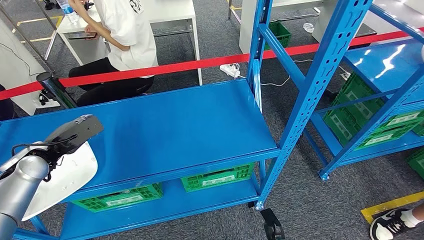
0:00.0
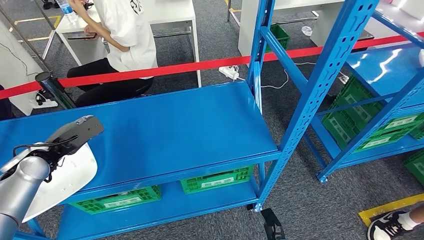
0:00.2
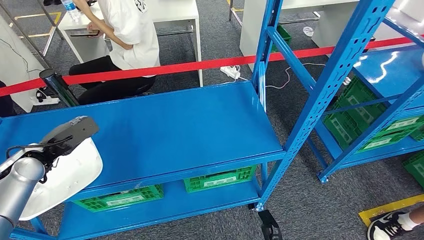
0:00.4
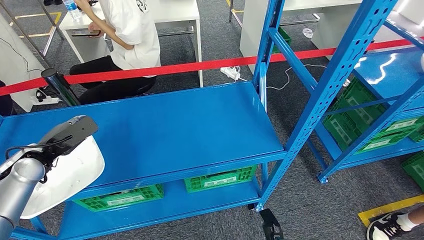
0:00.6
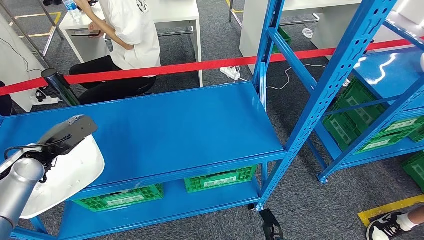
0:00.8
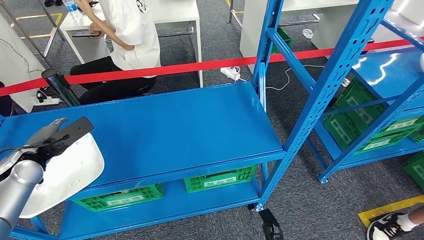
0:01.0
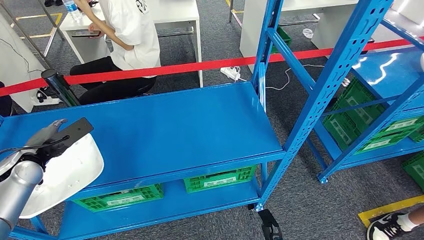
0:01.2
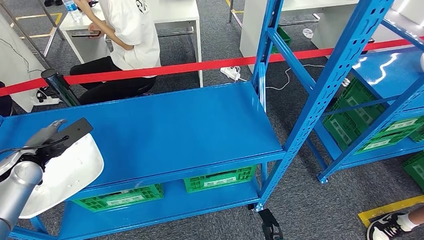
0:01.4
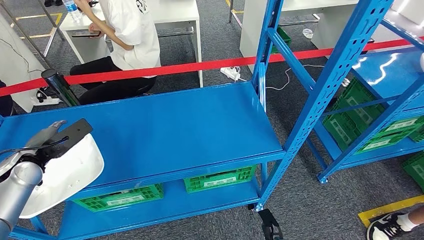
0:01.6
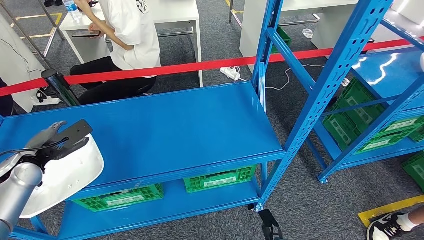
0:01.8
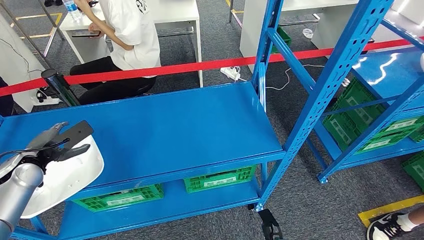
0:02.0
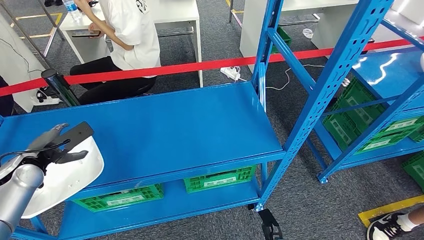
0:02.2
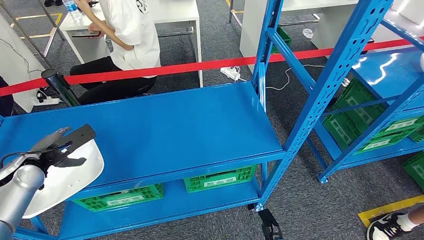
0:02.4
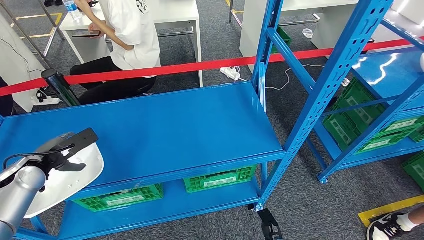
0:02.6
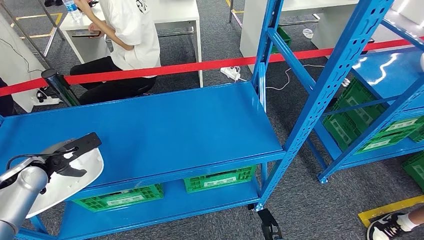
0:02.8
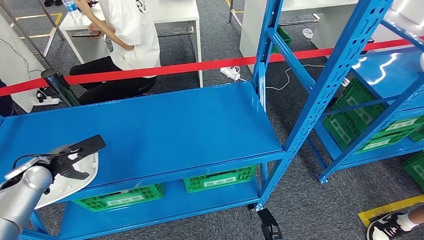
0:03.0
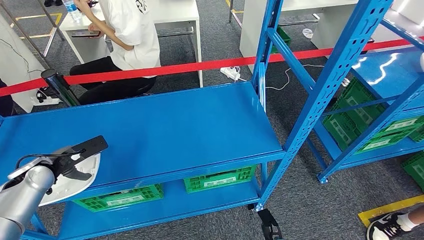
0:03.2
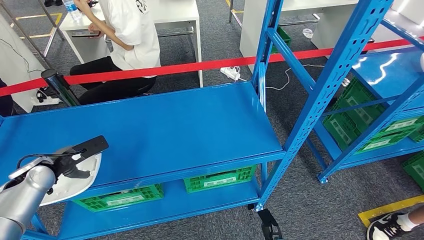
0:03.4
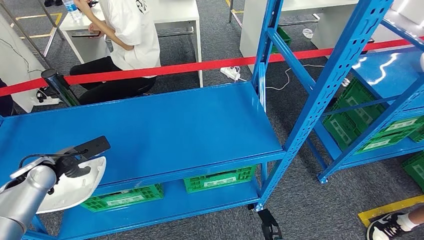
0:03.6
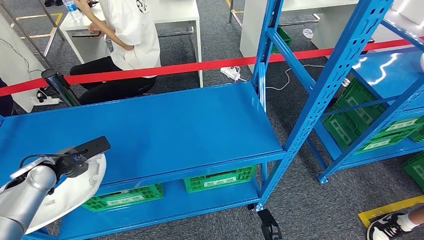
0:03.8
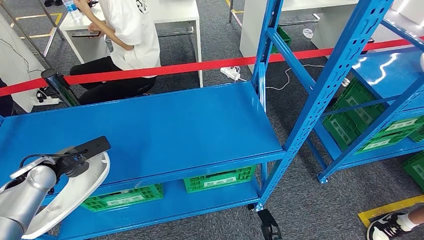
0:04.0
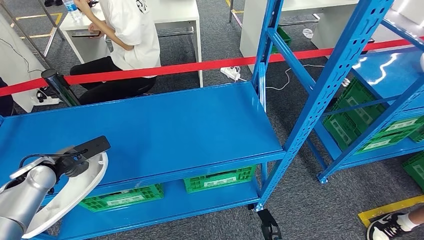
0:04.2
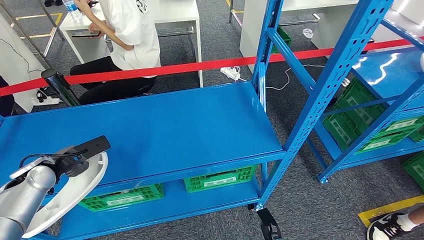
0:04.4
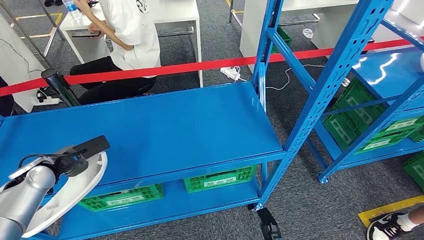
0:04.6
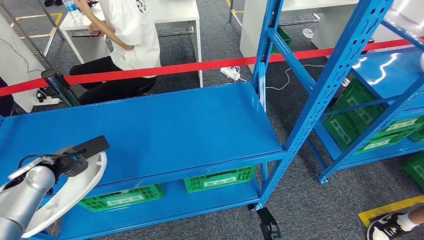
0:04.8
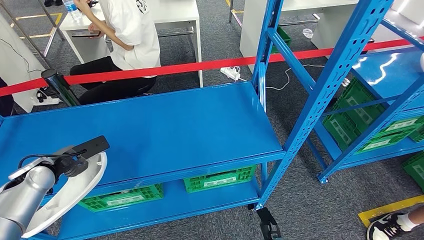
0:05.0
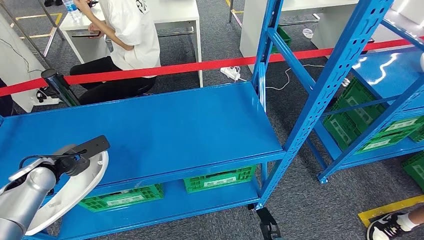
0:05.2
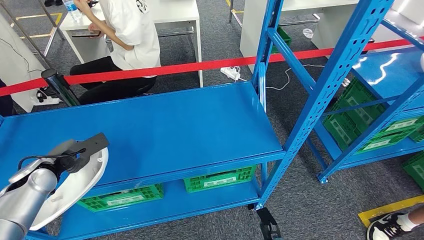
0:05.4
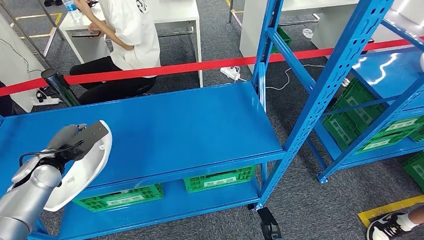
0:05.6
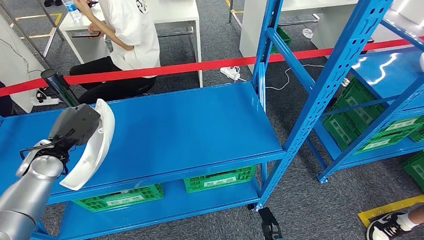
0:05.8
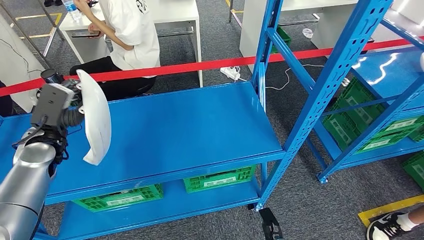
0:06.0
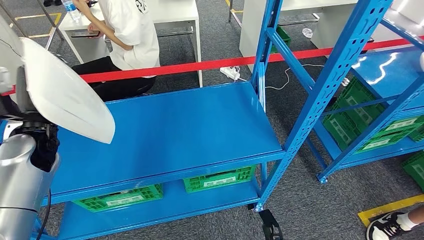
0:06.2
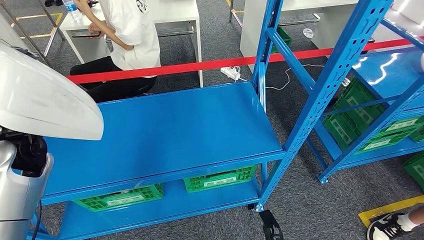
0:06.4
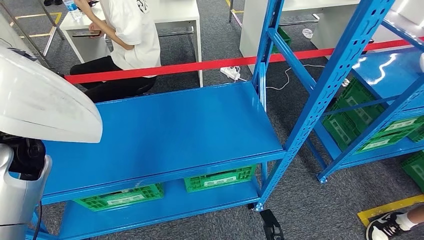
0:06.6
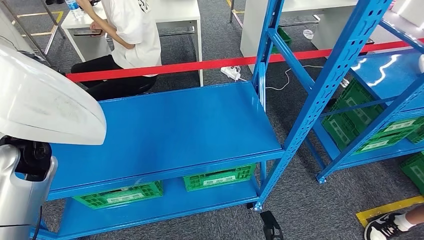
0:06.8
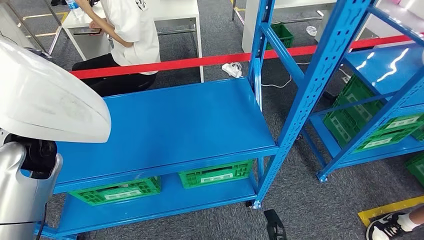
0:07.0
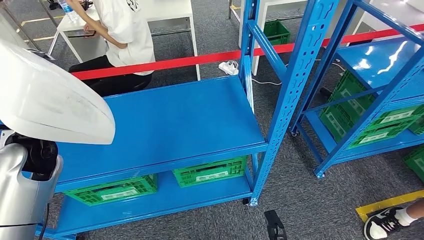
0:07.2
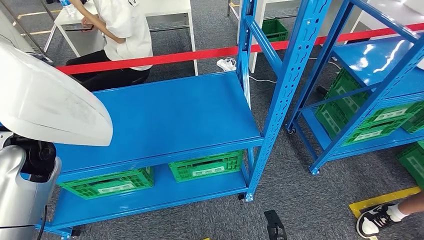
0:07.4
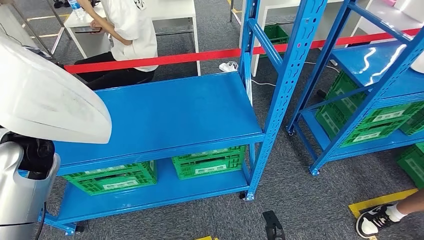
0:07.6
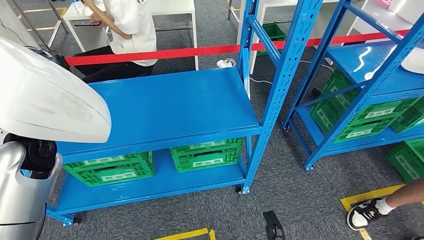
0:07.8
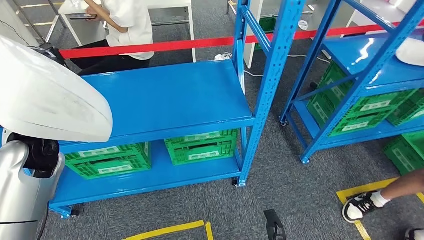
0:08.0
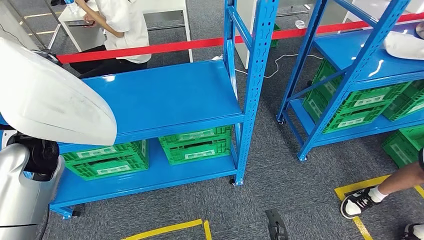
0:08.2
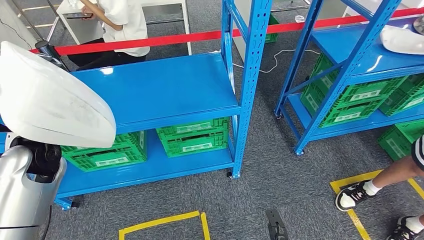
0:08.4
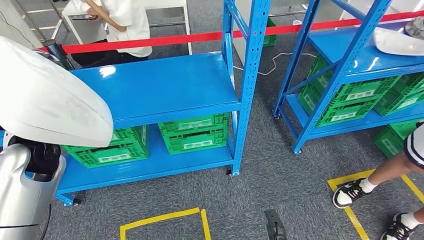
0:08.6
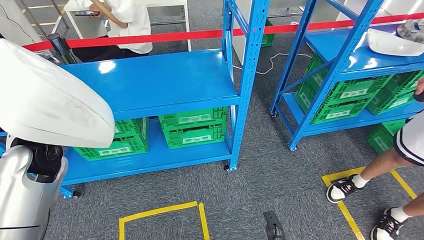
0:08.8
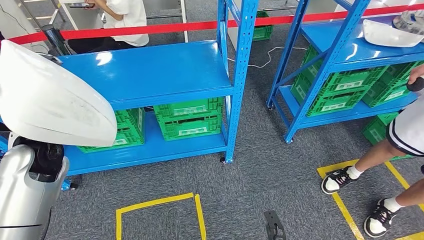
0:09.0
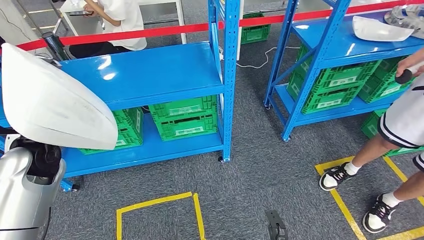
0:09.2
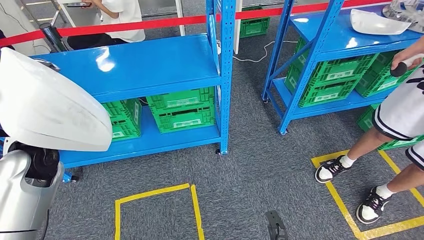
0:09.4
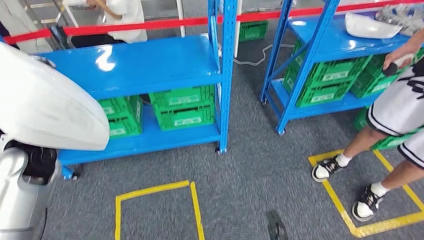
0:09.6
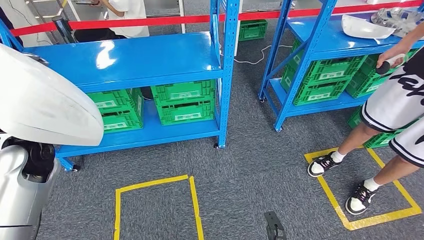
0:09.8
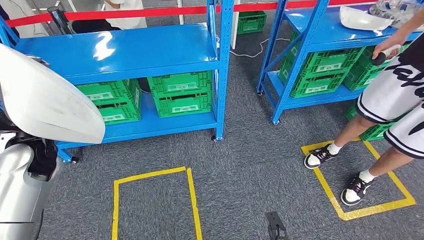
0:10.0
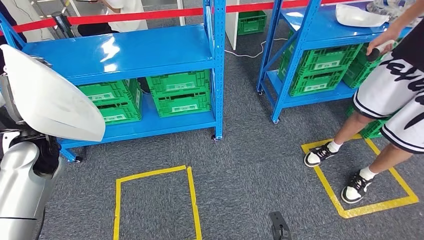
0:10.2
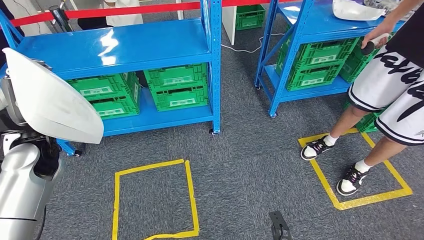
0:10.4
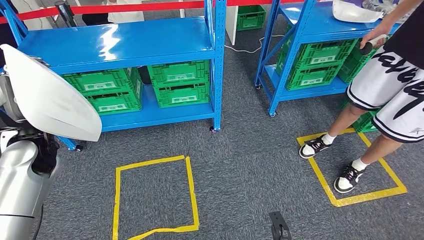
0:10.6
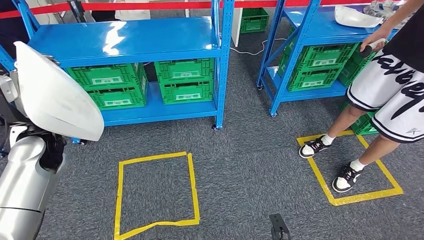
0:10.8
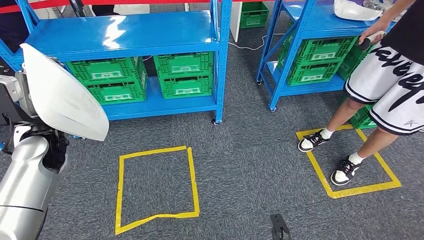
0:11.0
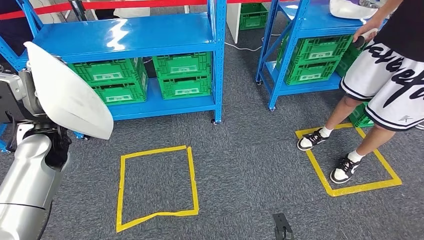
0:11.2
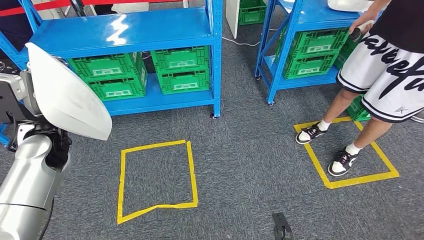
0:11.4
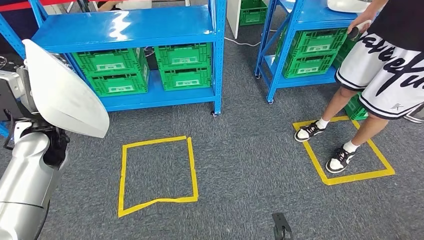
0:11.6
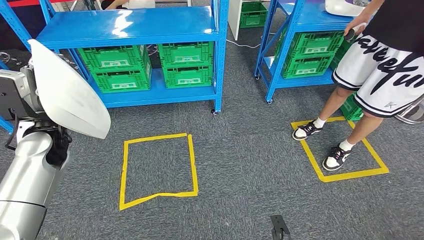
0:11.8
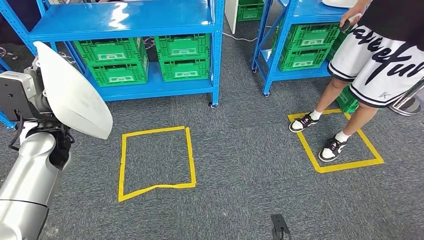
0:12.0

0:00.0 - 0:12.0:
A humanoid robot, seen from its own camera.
Step, 0:00.0 - 0:06.8: Pick up the small component from the shelf.
0:01.6 - 0:03.0: There are only small adjustments of the hands.
0:03.0 - 0:04.4: Both hands stay about where they are.
0:04.4 - 0:06.0: The left hand heads upward and to the right, covering some 10 cm.

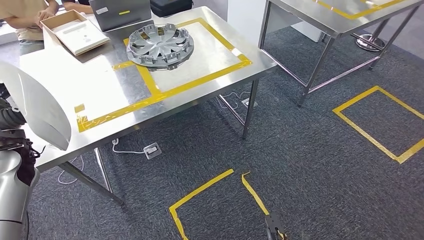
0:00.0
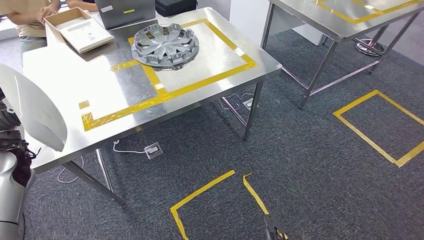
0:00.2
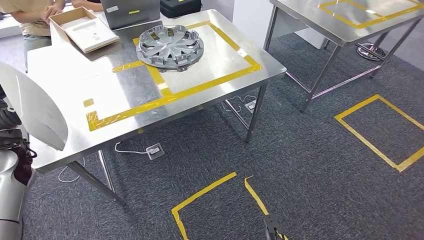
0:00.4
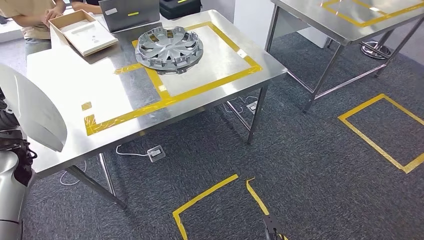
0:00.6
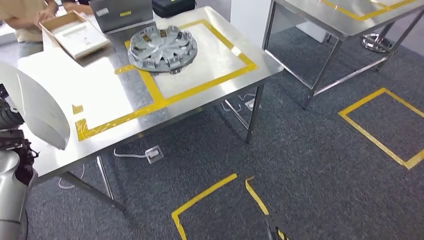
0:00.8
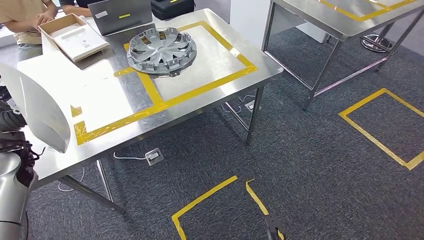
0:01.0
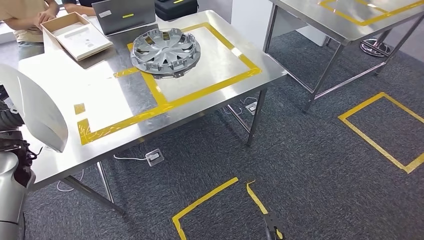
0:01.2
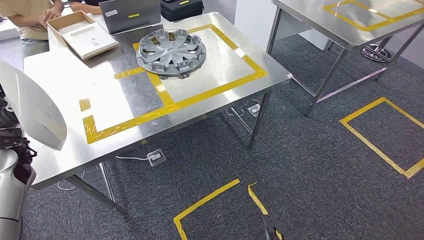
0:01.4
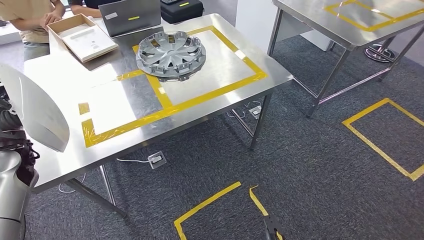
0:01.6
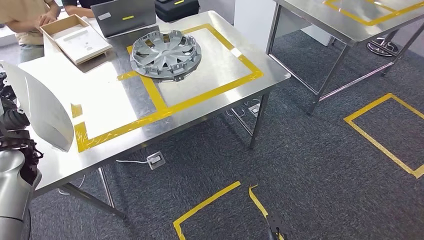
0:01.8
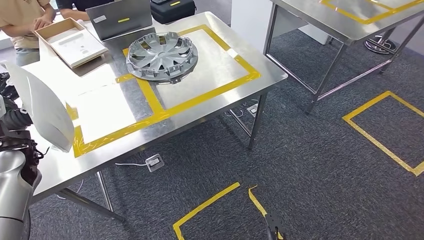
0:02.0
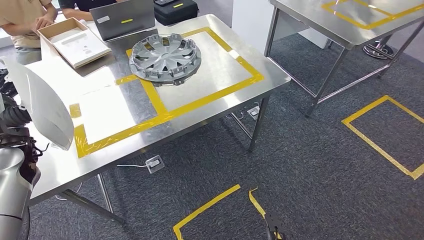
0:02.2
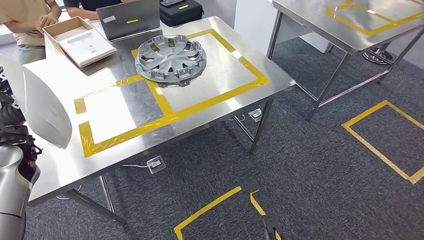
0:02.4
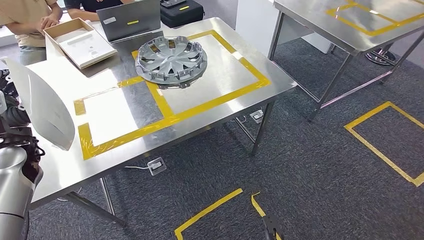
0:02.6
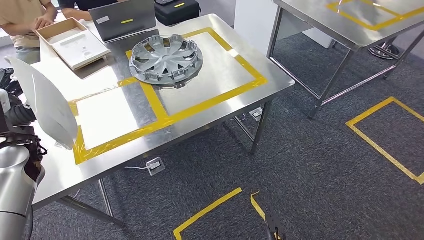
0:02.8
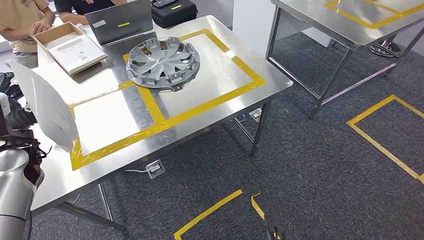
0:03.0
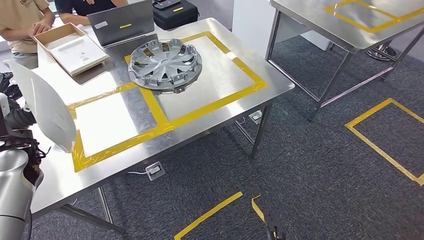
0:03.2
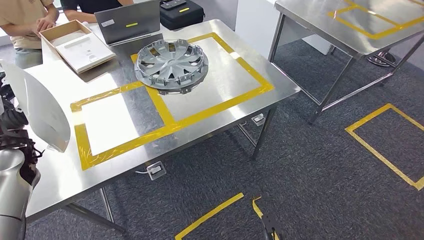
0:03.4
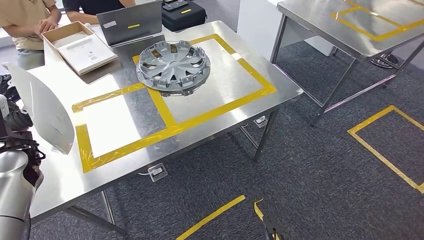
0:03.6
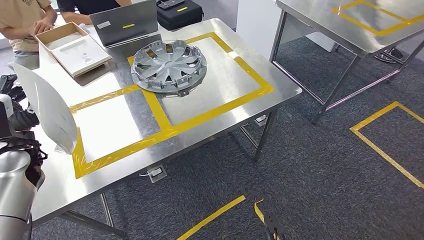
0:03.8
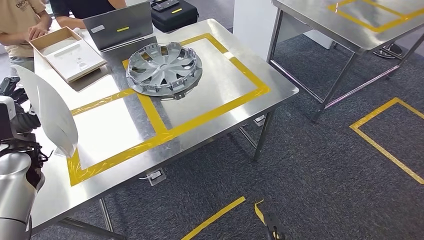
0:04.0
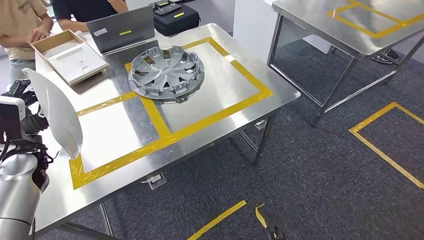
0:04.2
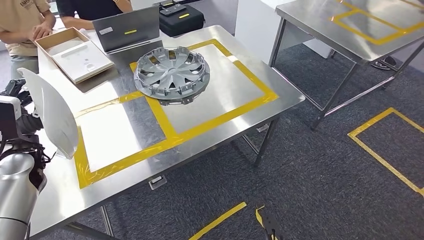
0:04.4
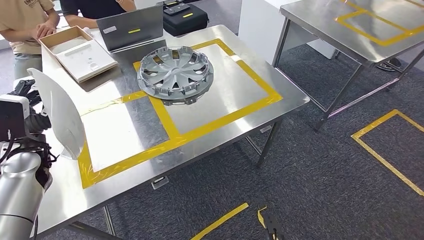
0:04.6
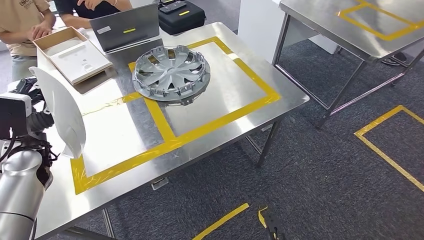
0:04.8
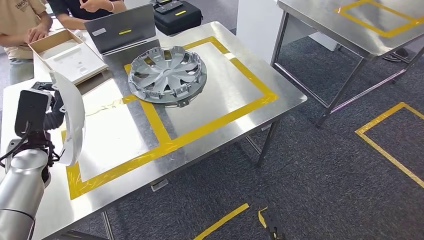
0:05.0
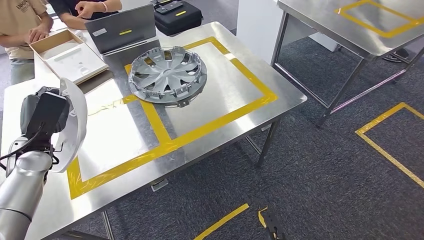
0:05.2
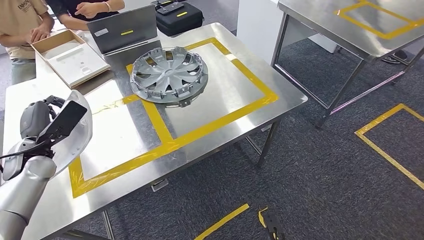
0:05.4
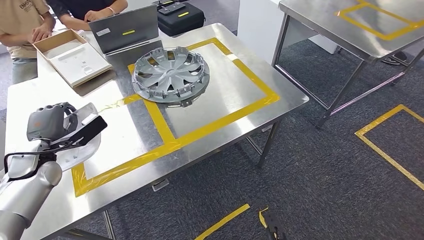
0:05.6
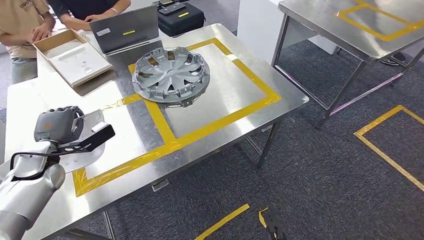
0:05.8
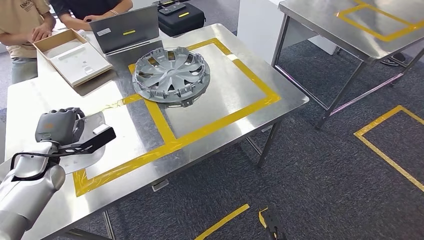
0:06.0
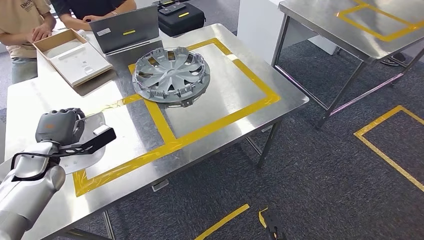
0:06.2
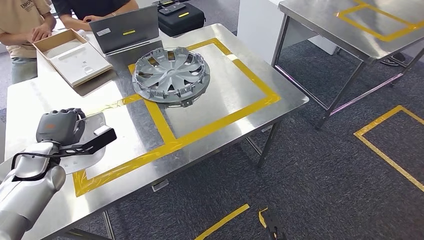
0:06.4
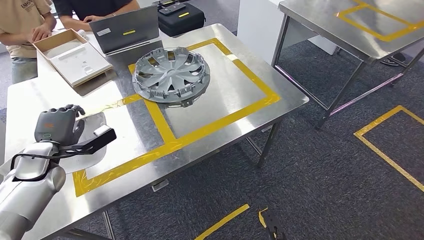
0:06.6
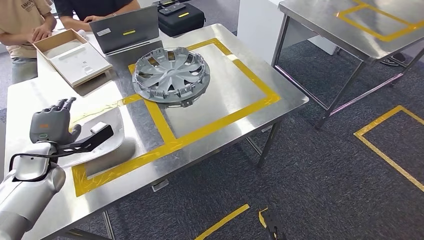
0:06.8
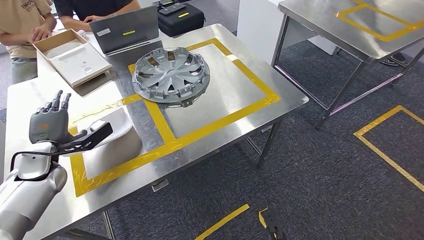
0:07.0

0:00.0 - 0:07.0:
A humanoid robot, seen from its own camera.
Step, 0:00.0 - 0:04.8: Bring the small component to the front of the workbench.
0:05.6 - 0:07.0: The hands move only a little.
